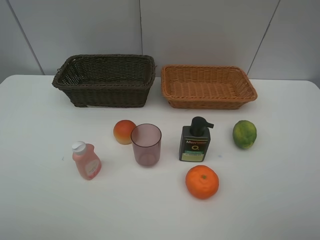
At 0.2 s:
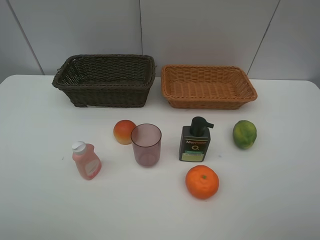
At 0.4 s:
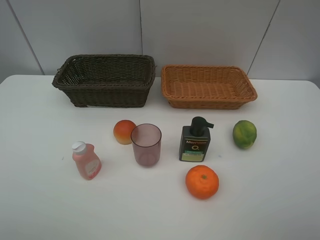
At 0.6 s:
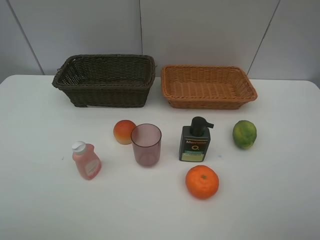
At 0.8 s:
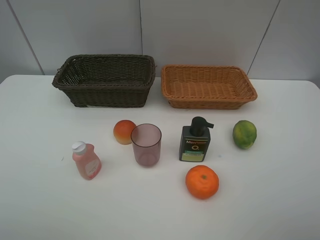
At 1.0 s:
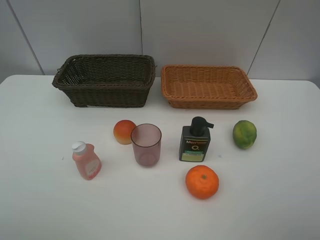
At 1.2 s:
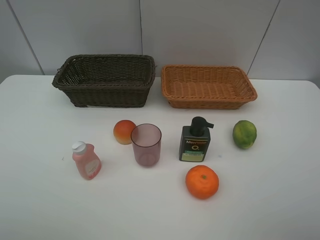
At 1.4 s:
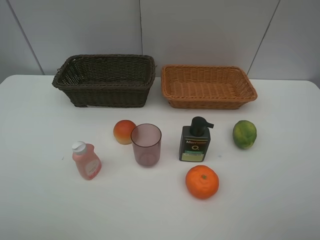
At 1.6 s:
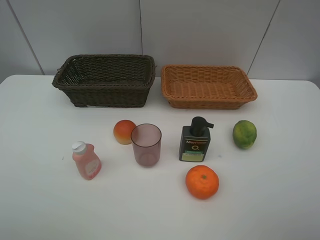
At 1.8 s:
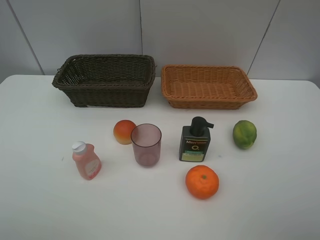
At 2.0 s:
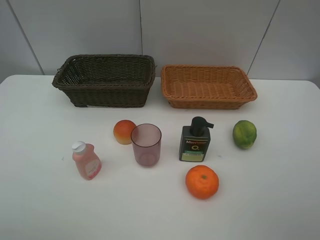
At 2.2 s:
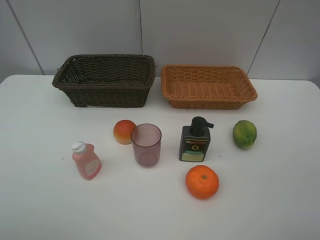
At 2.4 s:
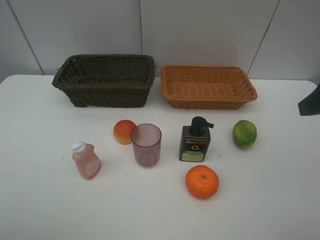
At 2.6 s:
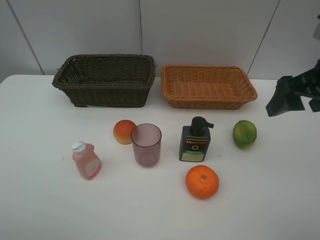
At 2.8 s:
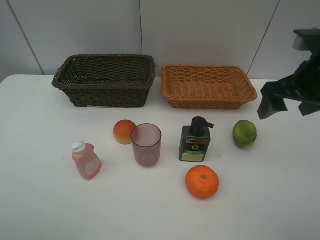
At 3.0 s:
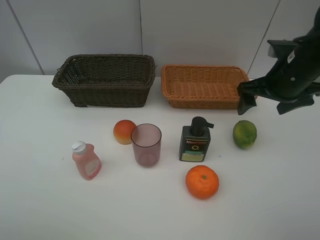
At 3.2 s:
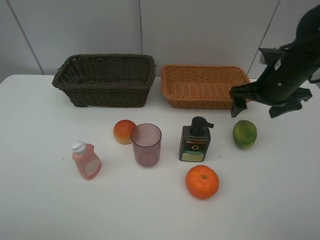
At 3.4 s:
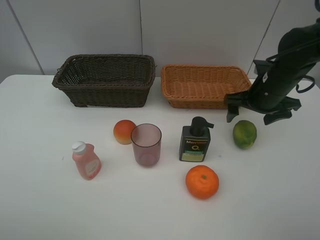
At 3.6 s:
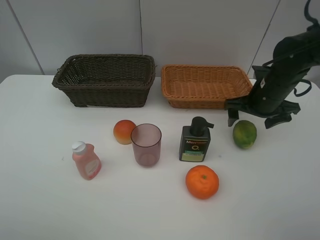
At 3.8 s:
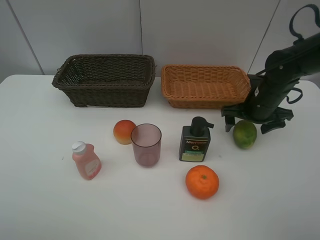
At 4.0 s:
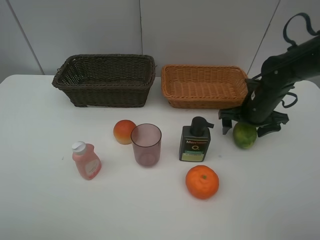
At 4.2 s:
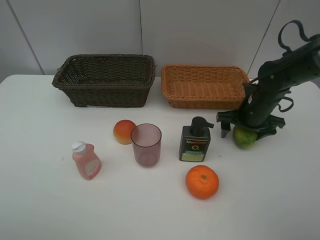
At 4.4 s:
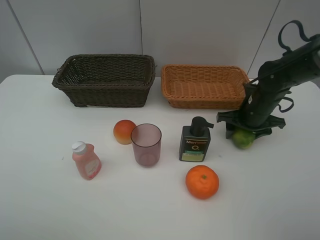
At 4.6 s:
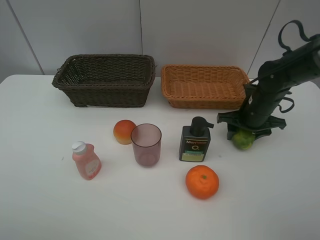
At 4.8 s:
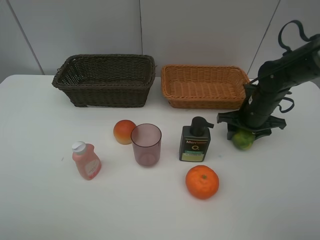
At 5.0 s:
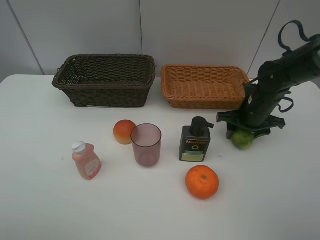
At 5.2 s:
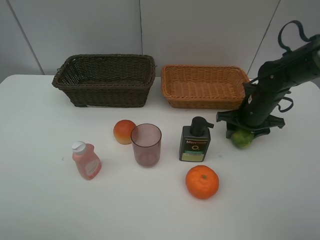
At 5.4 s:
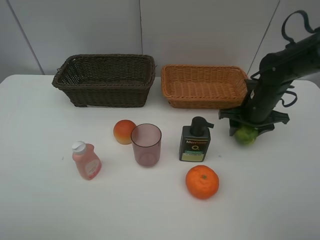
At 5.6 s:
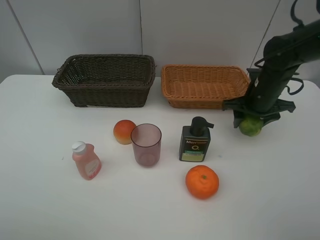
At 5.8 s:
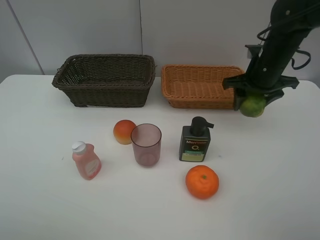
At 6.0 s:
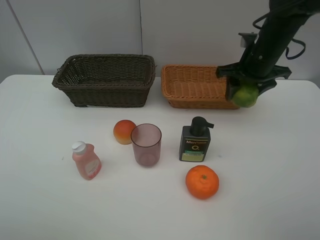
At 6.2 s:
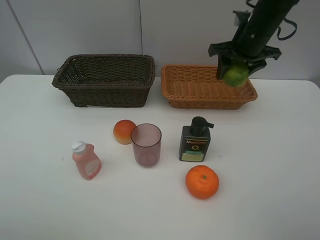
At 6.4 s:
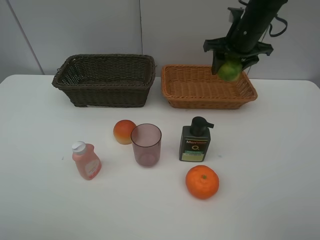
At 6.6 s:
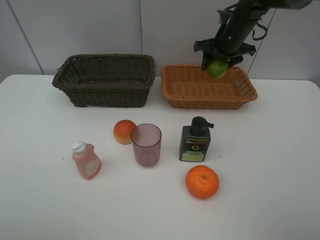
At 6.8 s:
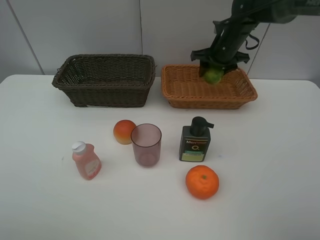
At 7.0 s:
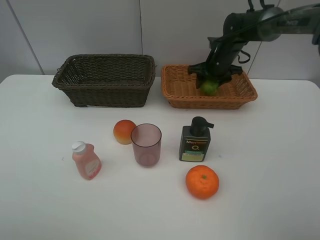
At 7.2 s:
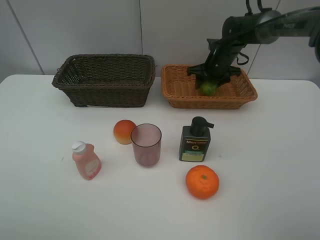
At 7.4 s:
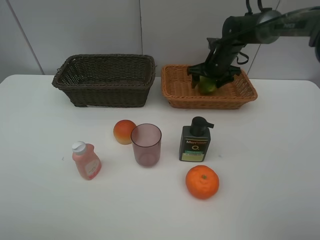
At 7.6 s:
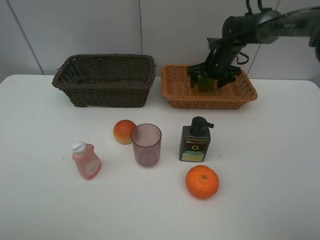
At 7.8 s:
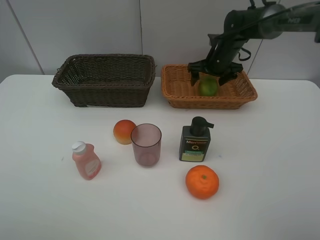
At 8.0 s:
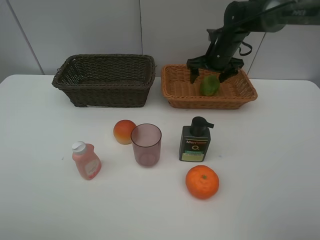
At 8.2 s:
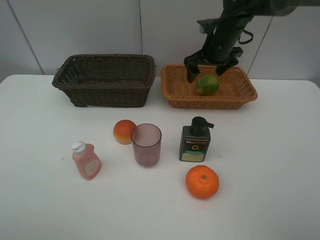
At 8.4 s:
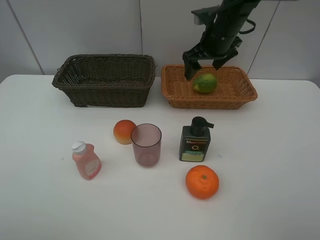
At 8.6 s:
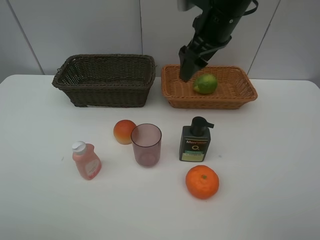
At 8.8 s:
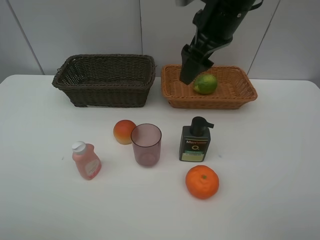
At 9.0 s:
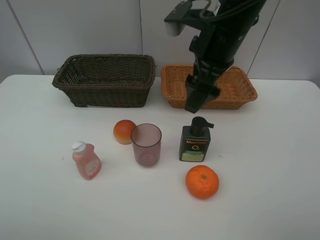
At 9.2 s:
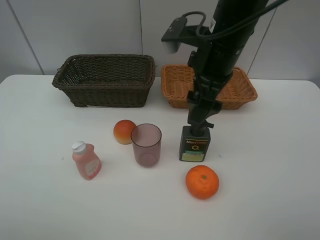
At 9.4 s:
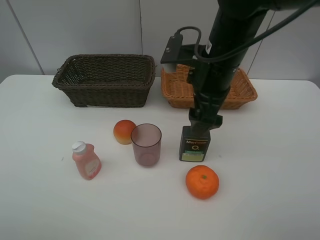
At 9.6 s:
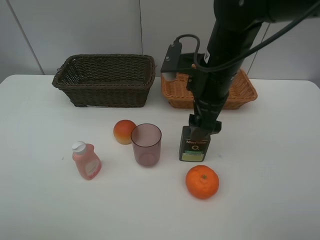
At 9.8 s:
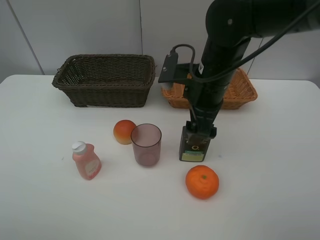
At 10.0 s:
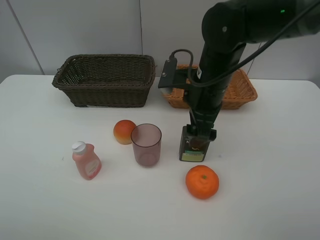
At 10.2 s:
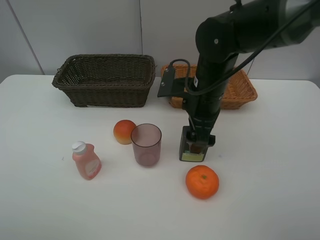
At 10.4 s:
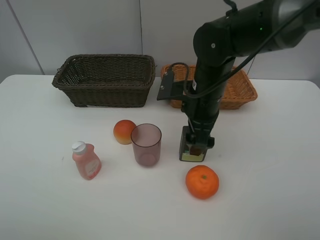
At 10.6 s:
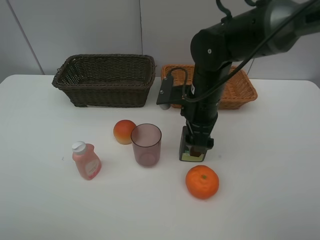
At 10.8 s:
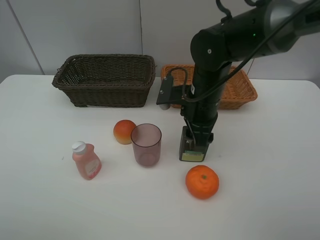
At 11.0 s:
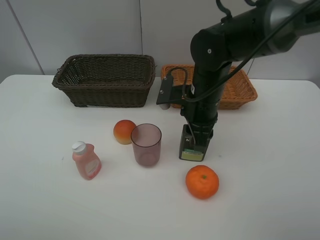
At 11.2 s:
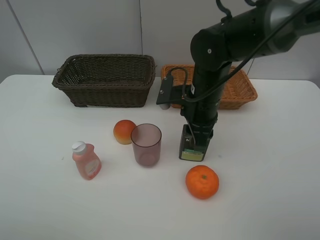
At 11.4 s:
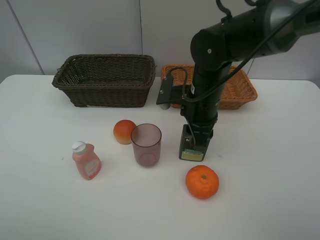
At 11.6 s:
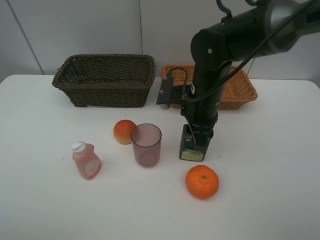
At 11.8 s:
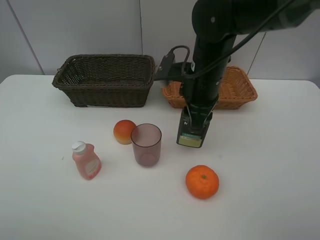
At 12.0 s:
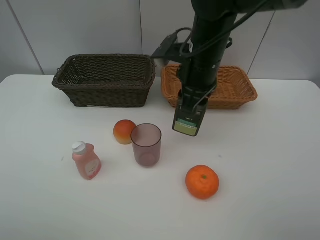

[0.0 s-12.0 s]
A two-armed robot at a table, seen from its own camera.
Task of the whole recording: place multiple objects separately in different baskets.
0.0 to 1.6 s: The two grippers keep their place.
1.6 to 3.0 s: The right gripper heads forward, covering roughly 30 cm.
3.0 to 4.4 s: The right gripper heads downward, covering some 10 cm, and closes its fingers.
4.4 to 6.0 s: The right gripper goes about 15 cm upward.
6.0 to 7.6 s: The right gripper shifts about 15 cm forward and downward, and opens.
7.6 to 9.0 s: The right gripper is displaced backward and upward by about 25 cm.
9.0 to 10.4 s: The right gripper heads downward, covering approximately 10 cm.
10.4 to 12.0 s: The right gripper heads upward, covering about 5 cm, and closes its fingers.

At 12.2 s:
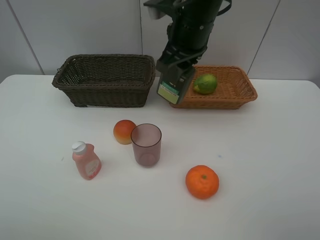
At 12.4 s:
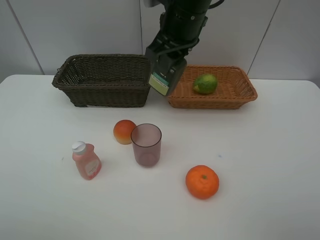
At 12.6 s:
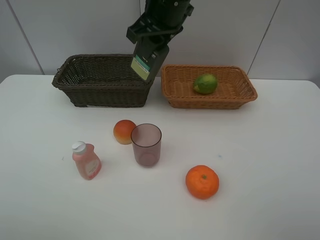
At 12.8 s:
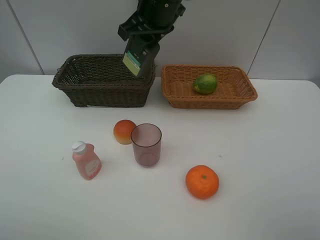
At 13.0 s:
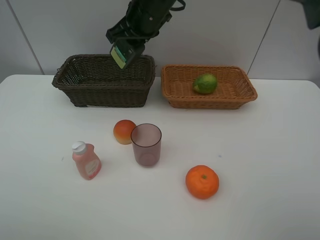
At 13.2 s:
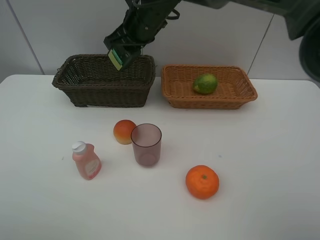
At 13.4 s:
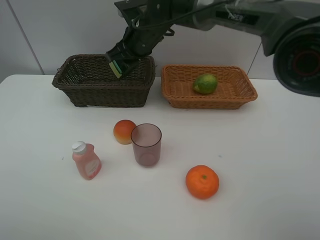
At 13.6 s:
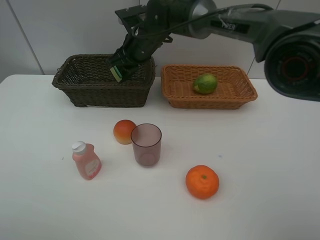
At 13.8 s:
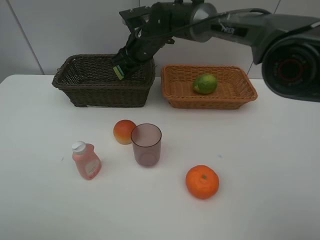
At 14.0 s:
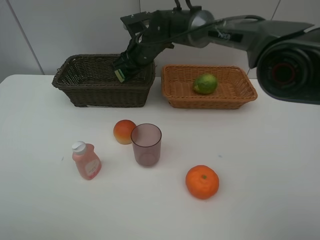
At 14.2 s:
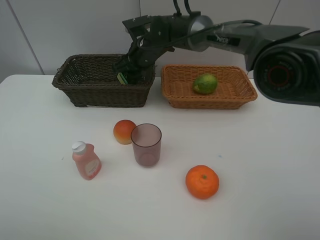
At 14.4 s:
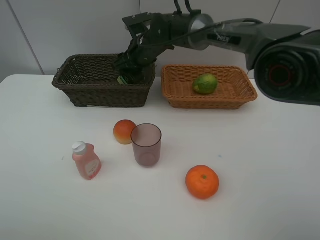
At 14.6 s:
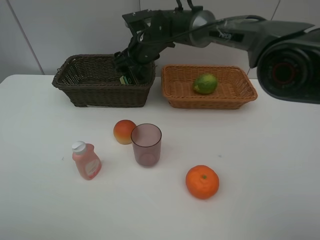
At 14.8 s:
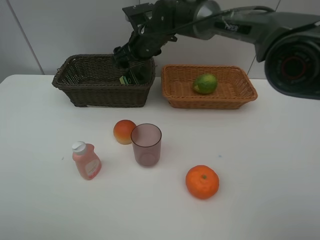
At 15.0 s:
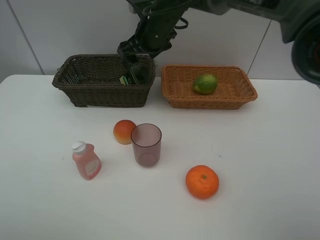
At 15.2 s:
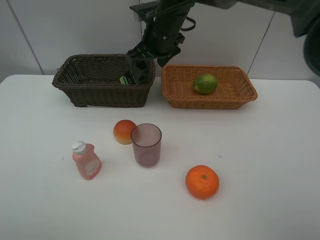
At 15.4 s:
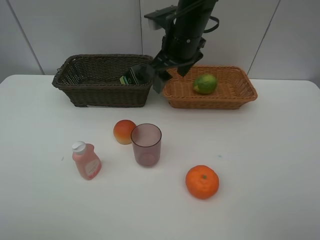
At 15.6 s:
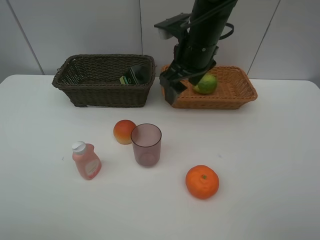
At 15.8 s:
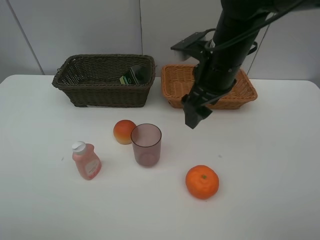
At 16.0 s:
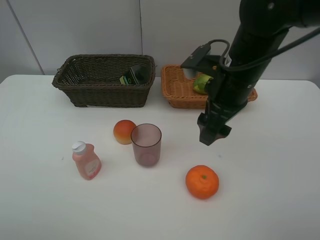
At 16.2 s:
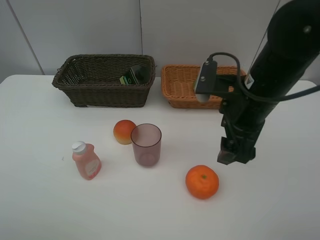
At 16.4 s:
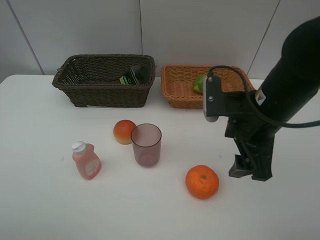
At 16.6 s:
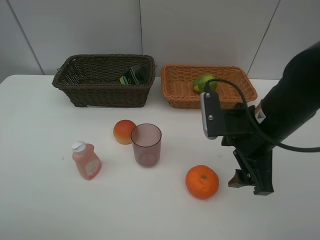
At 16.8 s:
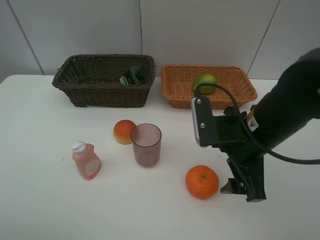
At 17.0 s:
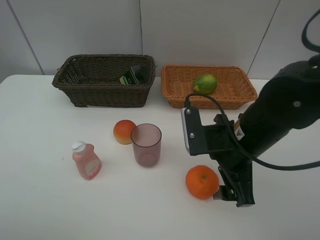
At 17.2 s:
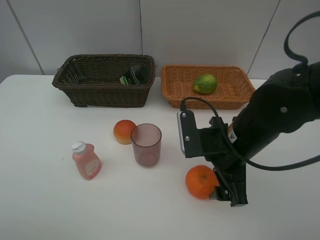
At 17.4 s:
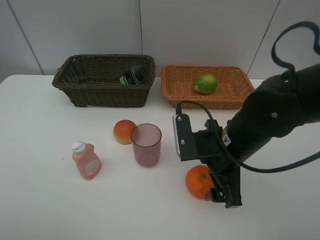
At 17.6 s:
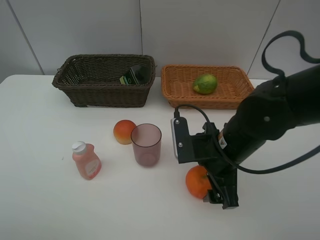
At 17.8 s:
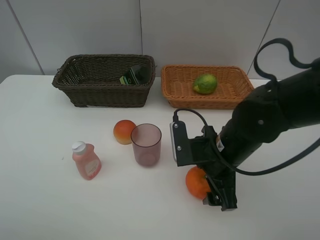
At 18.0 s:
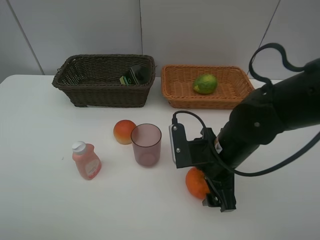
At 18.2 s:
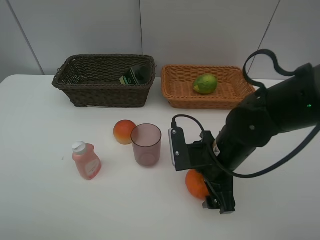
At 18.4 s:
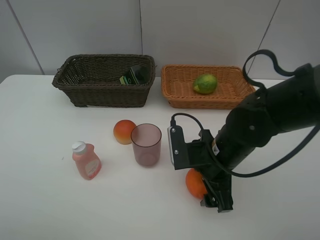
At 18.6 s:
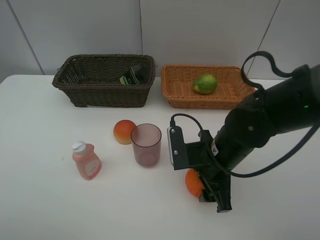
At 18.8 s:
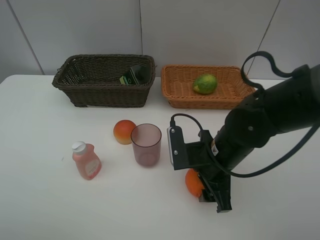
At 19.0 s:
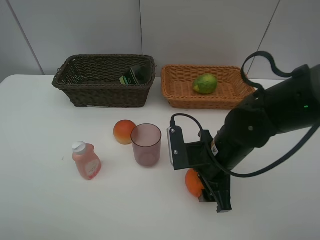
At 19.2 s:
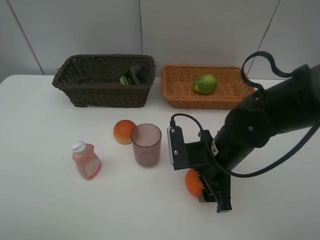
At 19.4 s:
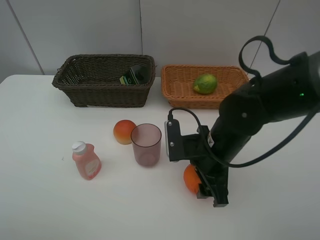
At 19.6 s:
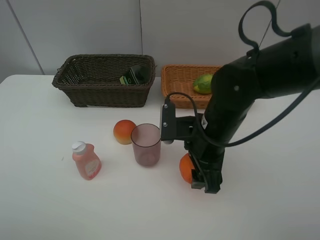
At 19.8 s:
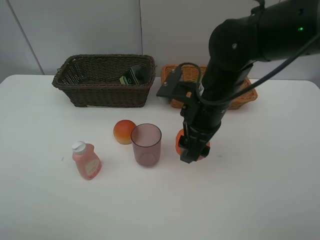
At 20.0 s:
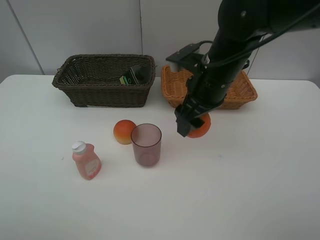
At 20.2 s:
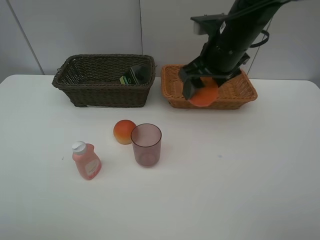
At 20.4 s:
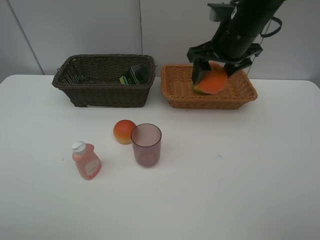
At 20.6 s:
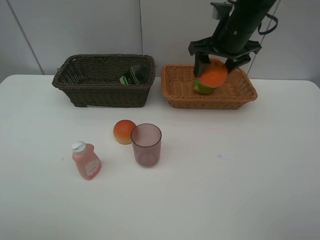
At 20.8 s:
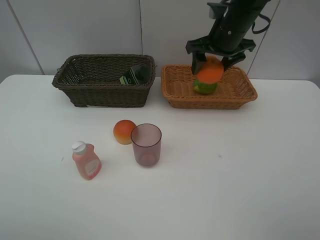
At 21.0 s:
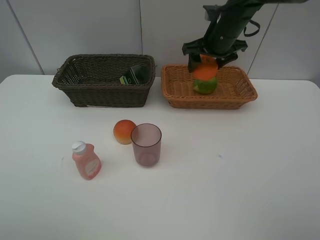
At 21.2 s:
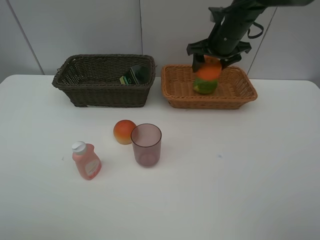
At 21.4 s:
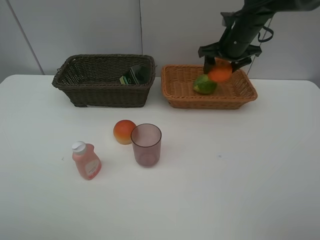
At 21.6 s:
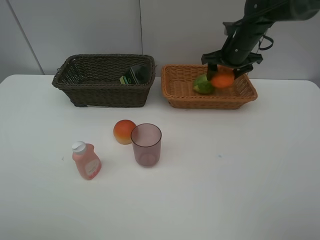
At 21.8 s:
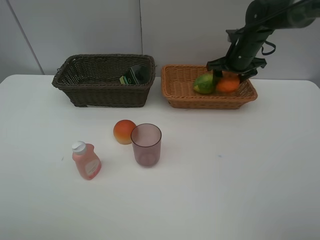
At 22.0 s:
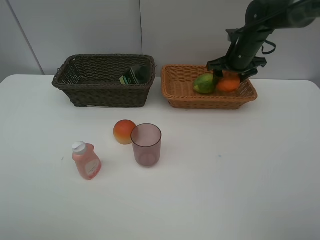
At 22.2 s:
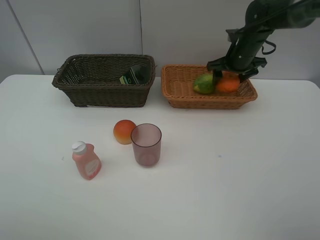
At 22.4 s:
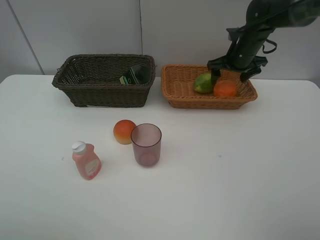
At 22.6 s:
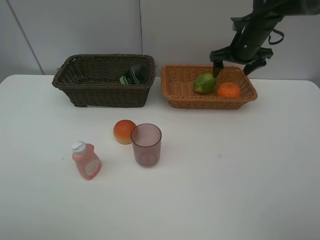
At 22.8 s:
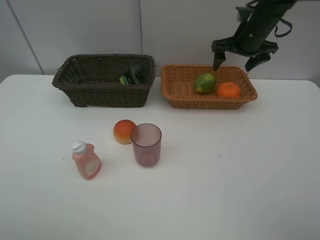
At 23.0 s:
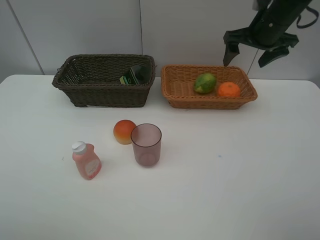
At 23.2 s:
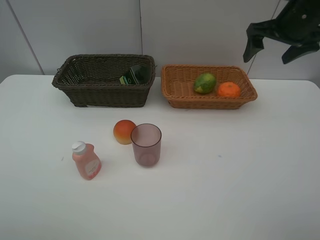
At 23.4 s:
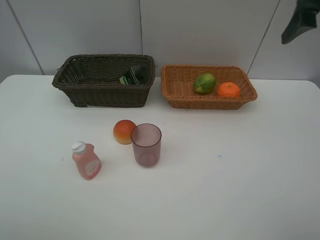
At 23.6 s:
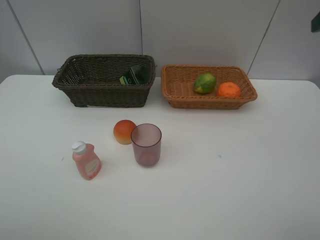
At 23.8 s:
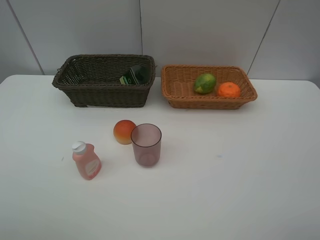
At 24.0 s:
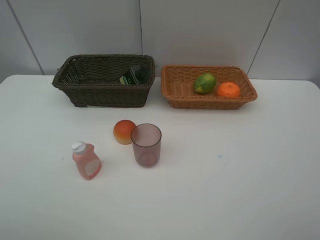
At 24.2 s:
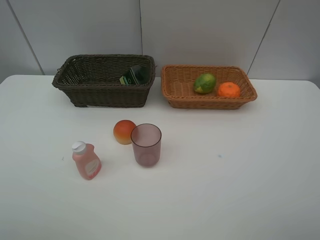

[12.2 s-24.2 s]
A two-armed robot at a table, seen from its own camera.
Task of the whole recording: place multiple objects separately in different baskets.
12.2 to 13.8 s: The right gripper moves forward, downward and to the left, some 15 cm.
13.8 to 15.2 s: The right gripper travels upward by some 5 cm, and opens.
15.2 to 16.6 s: The right gripper goes some 25 cm backward and to the right.
16.6 to 18.2 s: The right gripper shifts approximately 10 cm downward.
18.2 to 19.8 s: The right gripper shifts some 10 cm upward and forward, and closes up.
19.8 to 21.2 s: The right gripper heads forward and to the right, covering about 20 cm.
21.2 to 22.6 s: The right gripper travels to the right by about 5 cm, and opens up.
22.6 to 24.2 s: The right gripper moves backward, approximately 50 cm.
